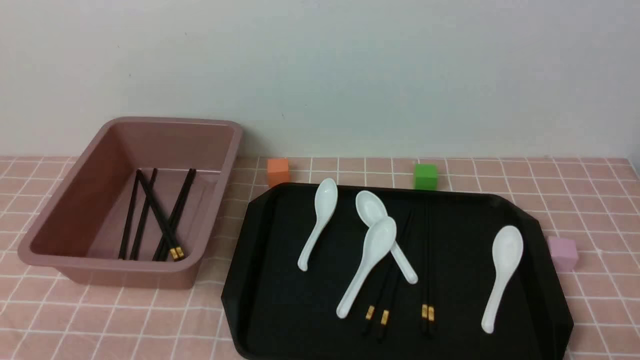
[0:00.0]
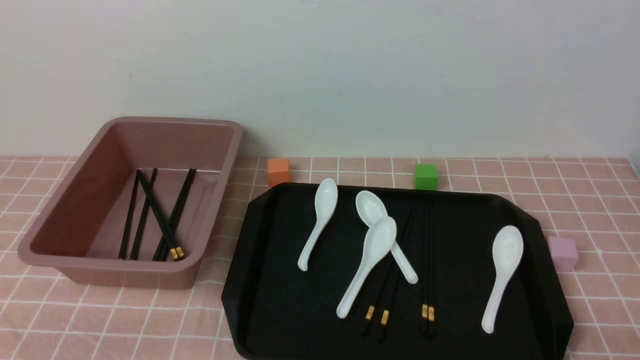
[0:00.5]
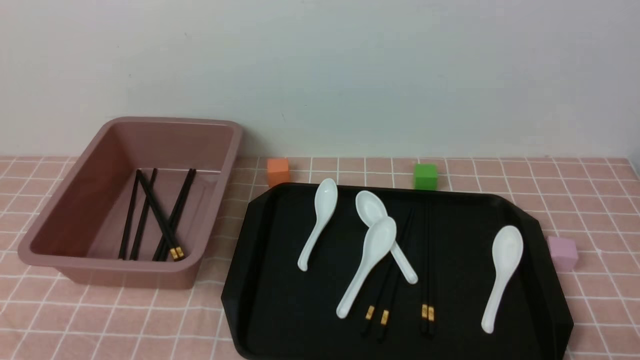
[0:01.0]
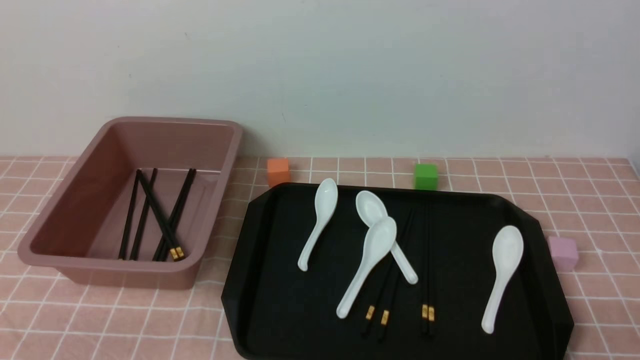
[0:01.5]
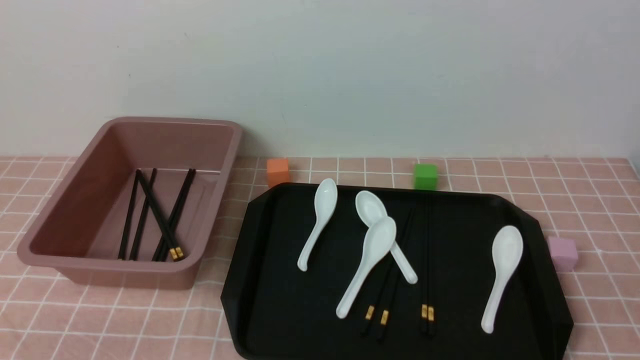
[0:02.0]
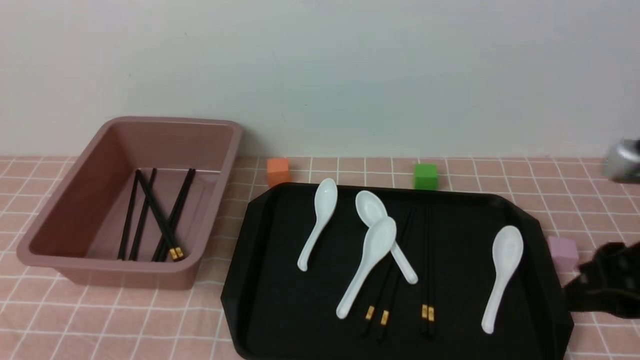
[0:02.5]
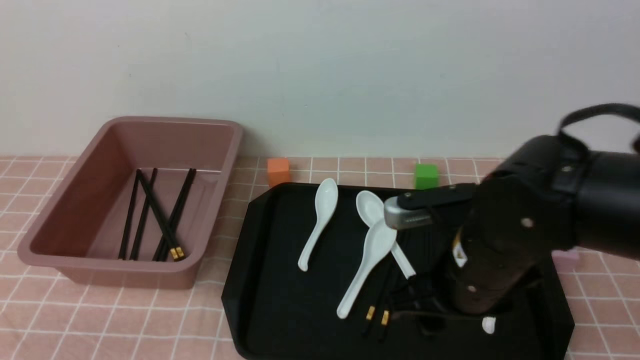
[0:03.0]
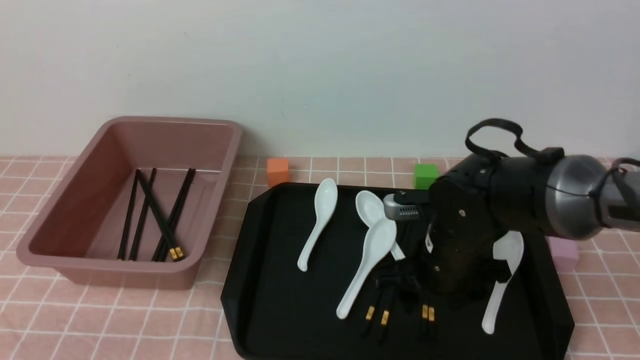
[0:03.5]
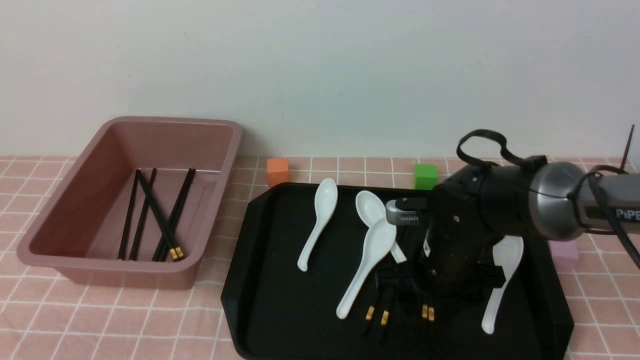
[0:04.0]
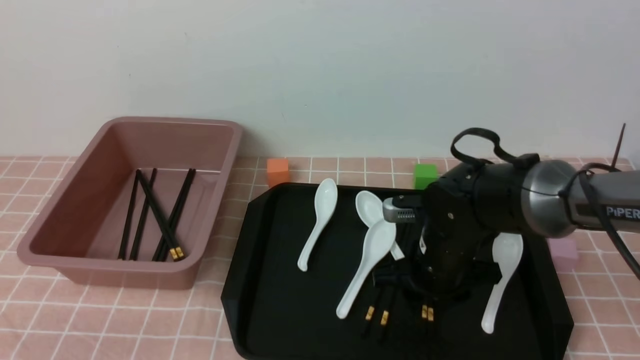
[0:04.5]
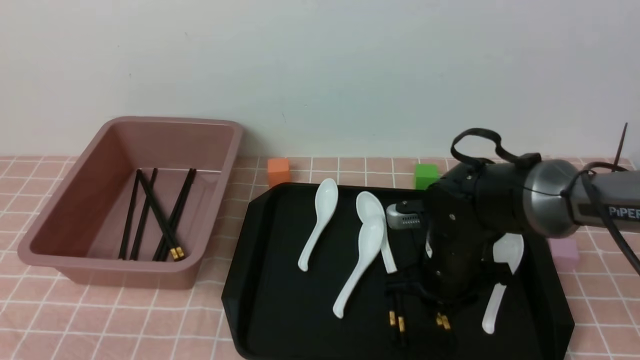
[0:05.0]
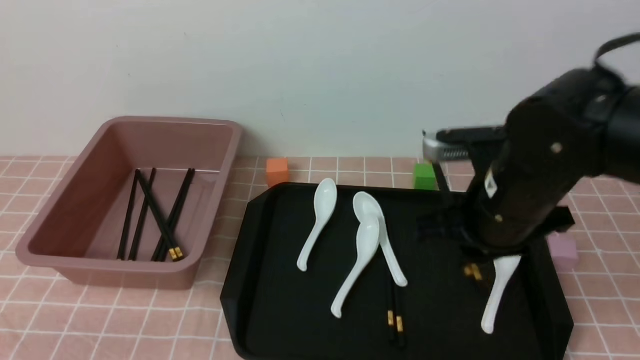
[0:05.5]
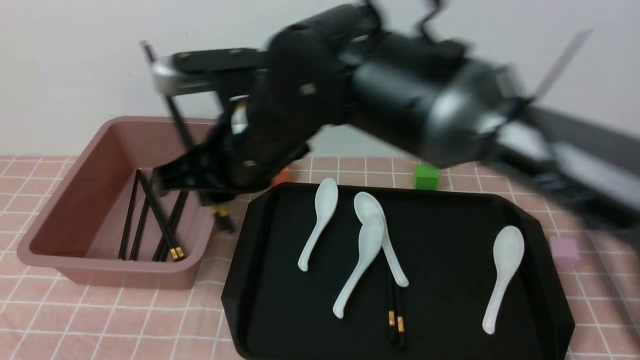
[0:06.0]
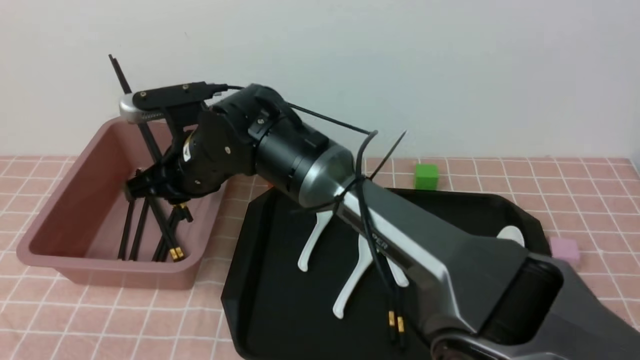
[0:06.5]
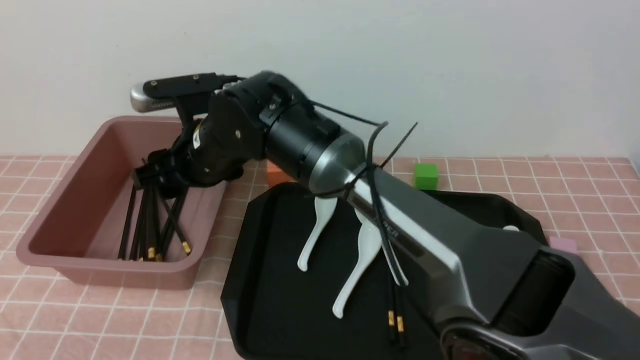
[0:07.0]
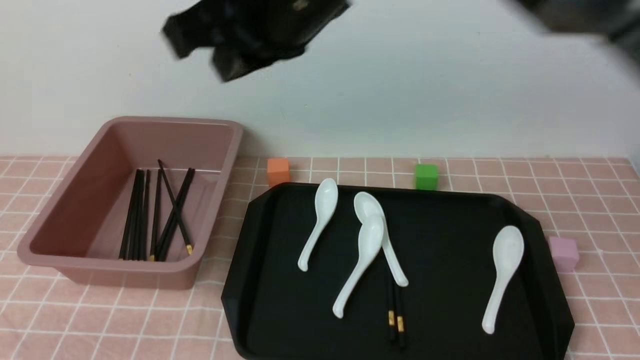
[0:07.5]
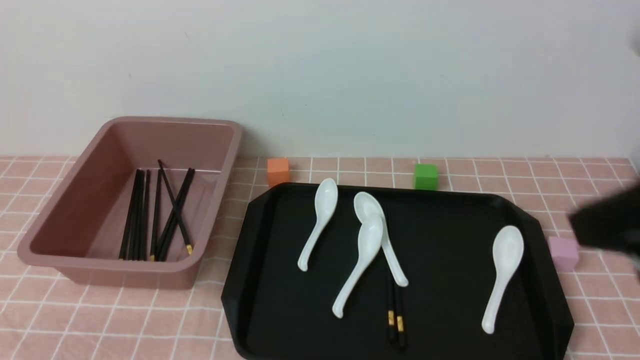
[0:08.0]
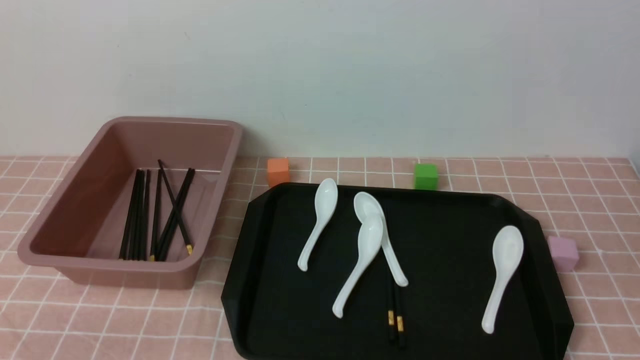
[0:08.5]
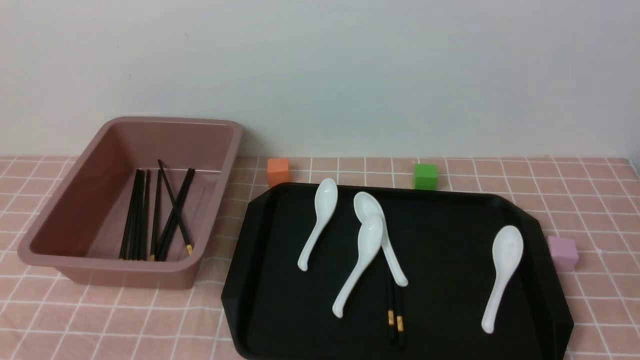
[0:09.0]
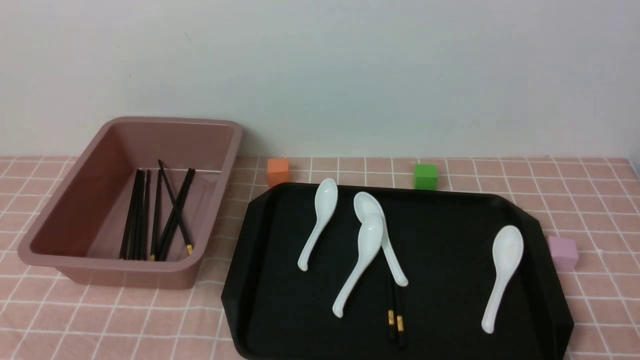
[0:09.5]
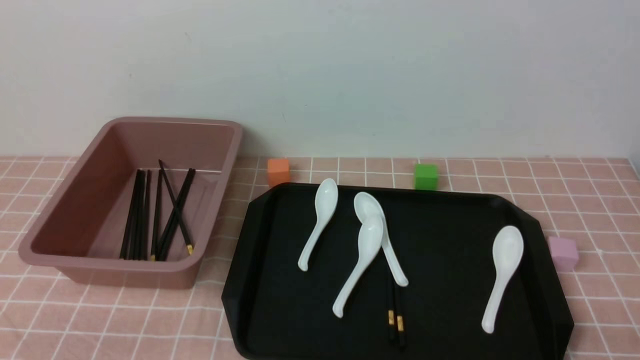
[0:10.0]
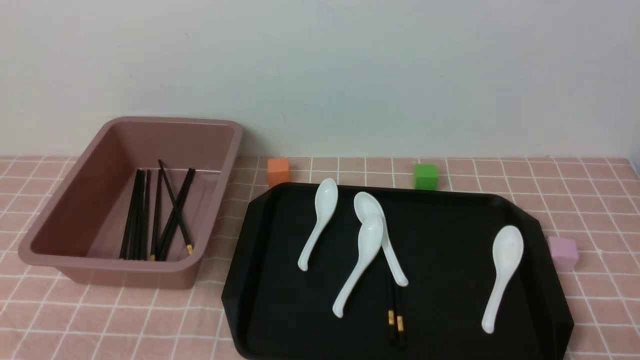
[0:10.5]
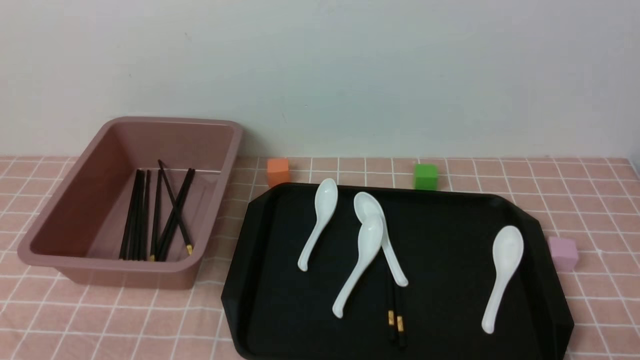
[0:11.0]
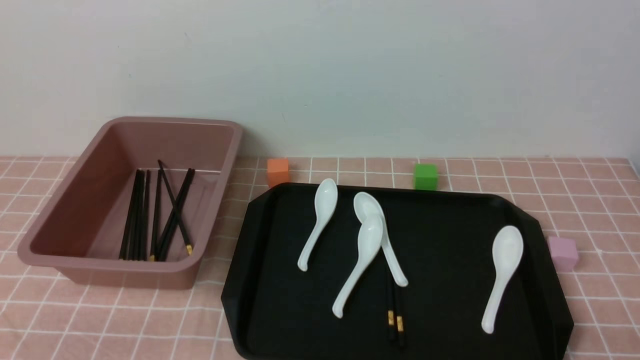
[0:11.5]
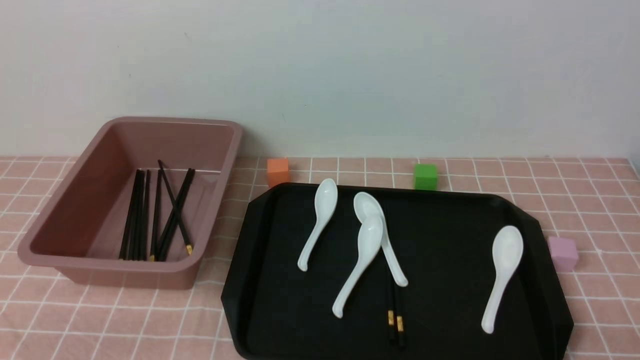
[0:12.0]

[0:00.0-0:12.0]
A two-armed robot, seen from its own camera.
Step, 0:00.0 to 0:05.5: use the right arm to grab a pair of chopsticks.
Step, 0:06.0 to 0:07.0: use the right arm to put the chopsticks into the lunch box.
0:02.0 to 0:04.0: The right gripper goes about 35 cm forward, to the left and downward, and opens its fingers.
0:04.0 to 0:06.0: The right gripper heads upward and to the left, covering some 25 cm, and closes up.
0:06.0 to 0:08.0: The right gripper heads to the right, backward and upward, covering about 35 cm, and opens, then closes once more.
0:08.0 to 0:10.0: The right gripper goes roughly 30 cm downward and to the right.
0:10.0 to 0:12.0: Neither gripper changes place.
